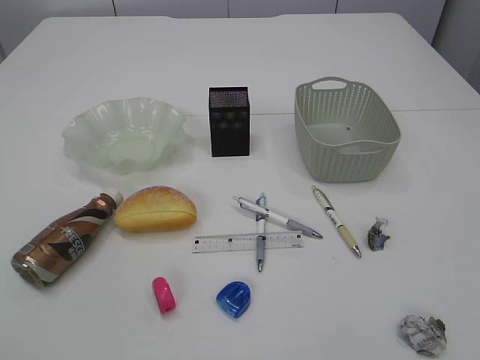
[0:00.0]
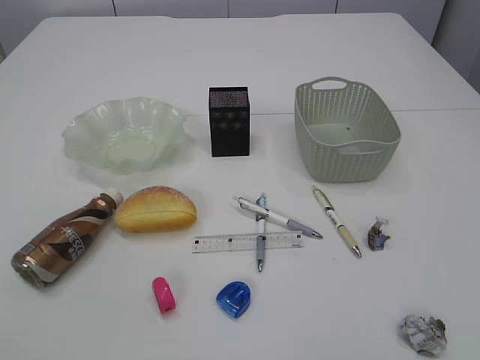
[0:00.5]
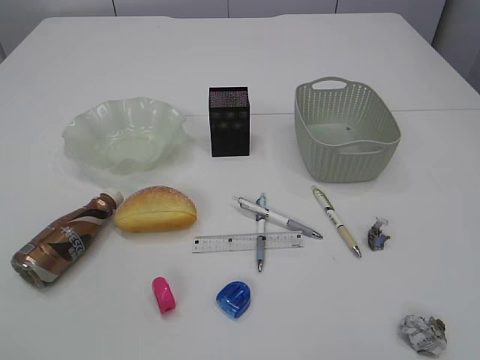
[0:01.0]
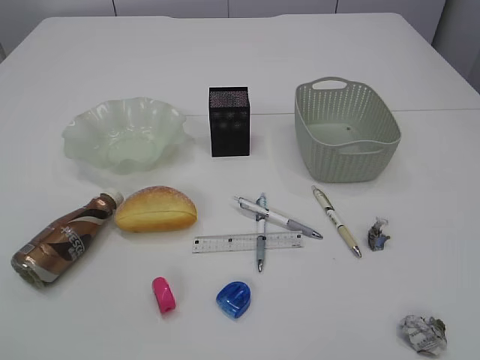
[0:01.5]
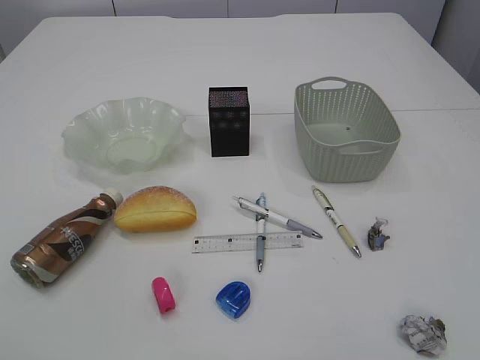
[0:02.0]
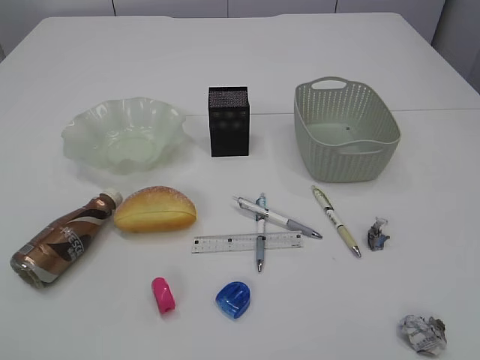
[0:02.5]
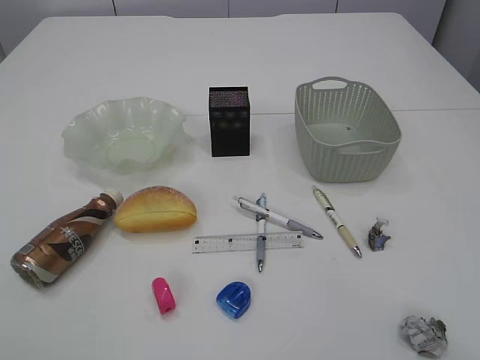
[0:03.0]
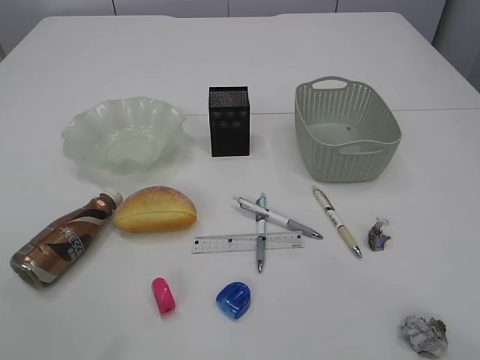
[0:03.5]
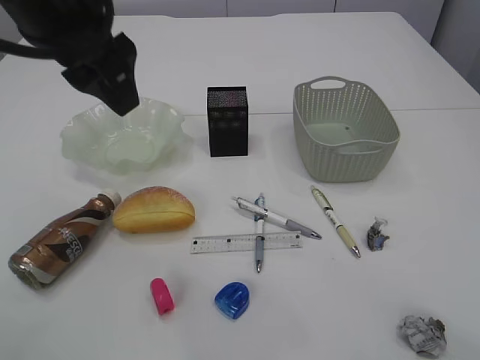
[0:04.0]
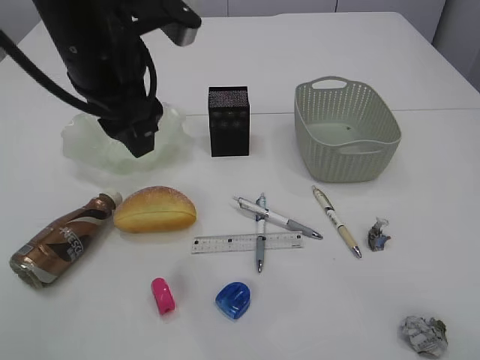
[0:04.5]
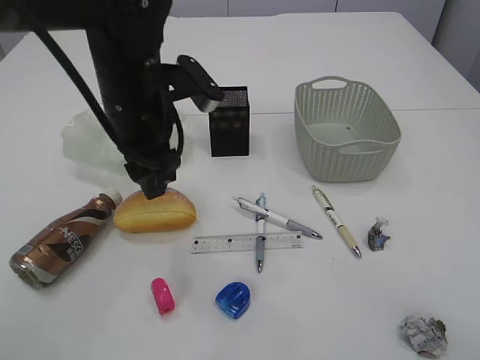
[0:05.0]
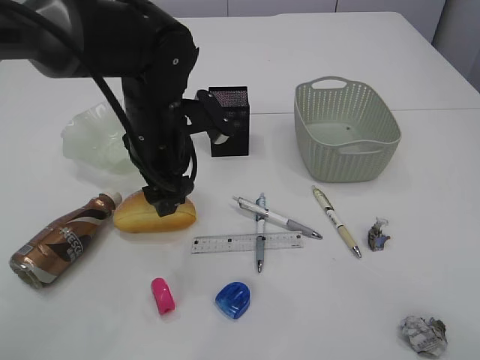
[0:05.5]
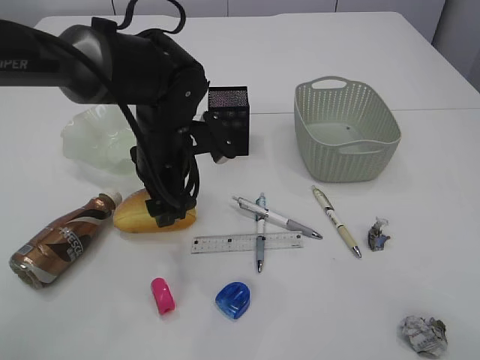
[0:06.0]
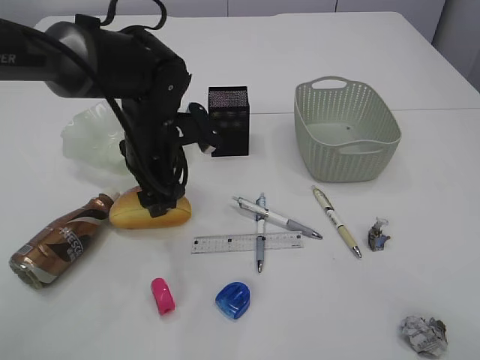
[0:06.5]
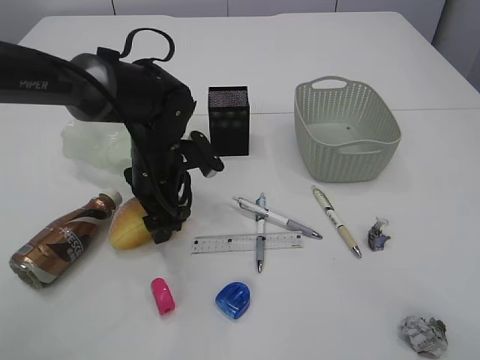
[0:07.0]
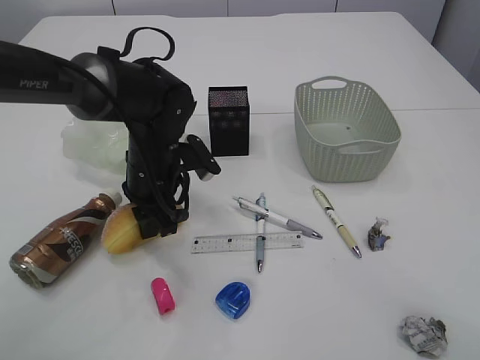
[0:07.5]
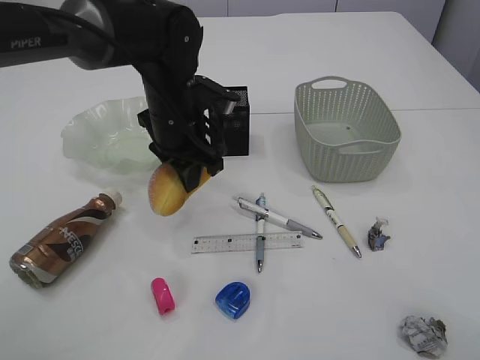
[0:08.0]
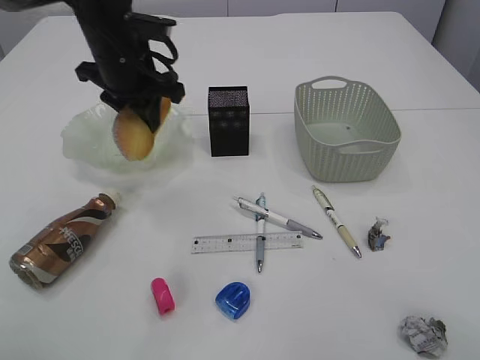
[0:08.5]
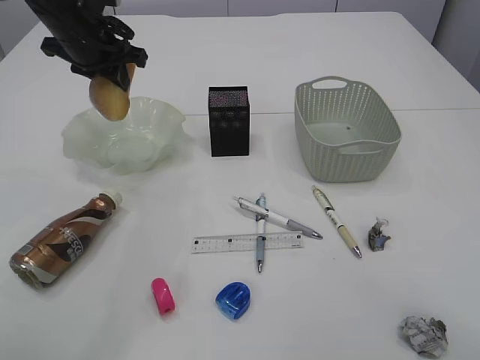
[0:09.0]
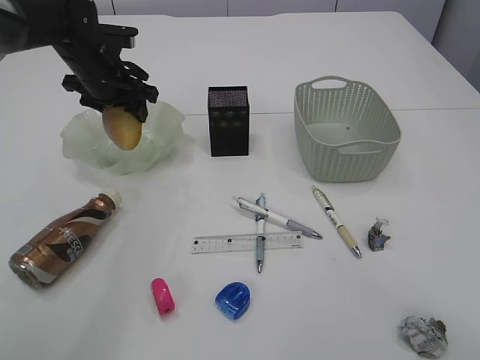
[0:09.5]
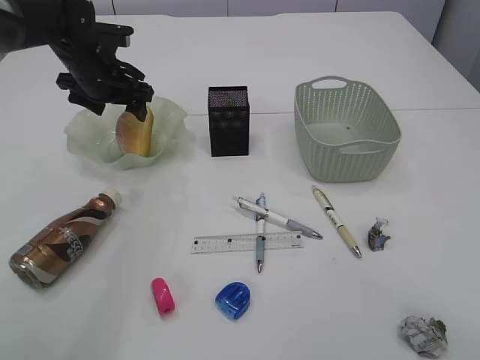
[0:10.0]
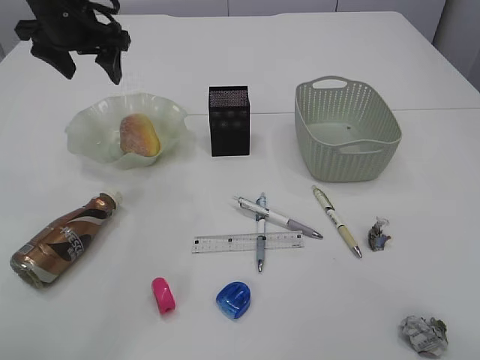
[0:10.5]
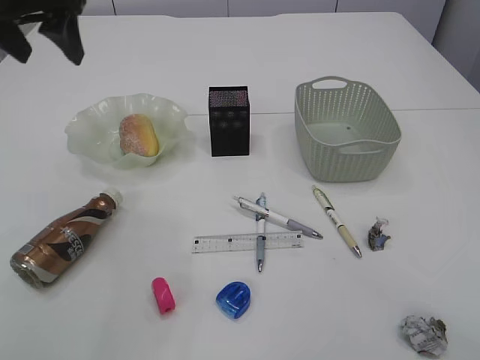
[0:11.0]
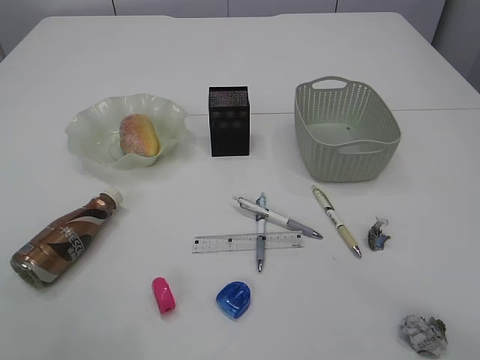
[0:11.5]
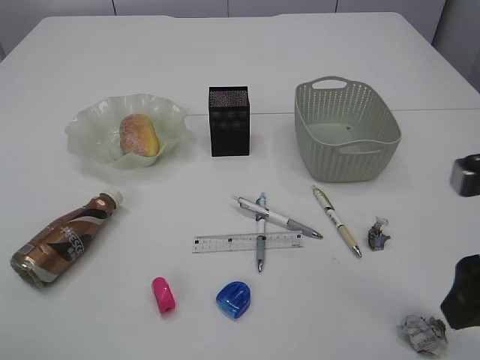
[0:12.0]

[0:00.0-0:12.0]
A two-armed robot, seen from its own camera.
Step, 0:08.5 to 0:10.0: place the bread in the plate.
0:02.0 to 0:04.0: The right gripper moves forward, roughly 10 cm. The left gripper moves forward and to the right, approximately 35 cm.
0:04.0 to 0:06.0: The left gripper goes roughly 20 cm downward.
0:06.0 to 0:08.0: The left gripper closes up.
0:08.0 to 0:10.0: The left gripper moves to the left and forward, roughly 15 cm, and opens up.
0:10.0 to 0:12.0: The right gripper is displaced forward, downward and to the left by about 10 cm. The left gripper heads backward and upward, covering some 40 cm.

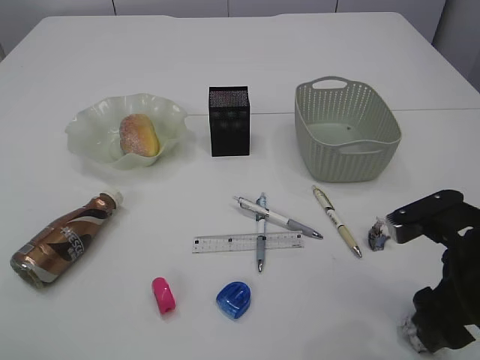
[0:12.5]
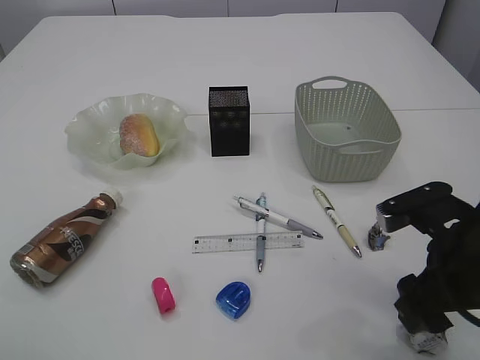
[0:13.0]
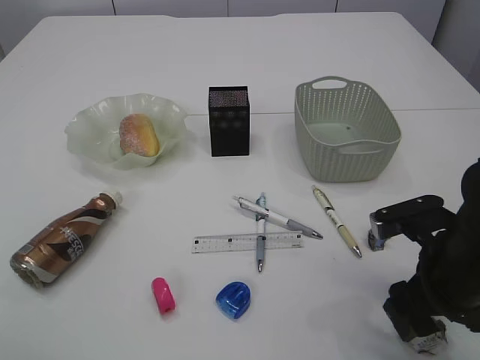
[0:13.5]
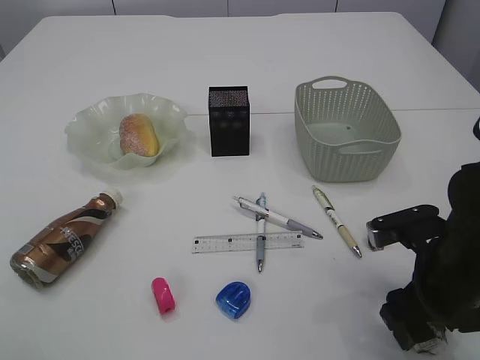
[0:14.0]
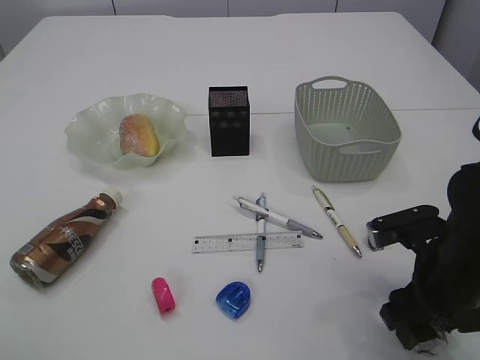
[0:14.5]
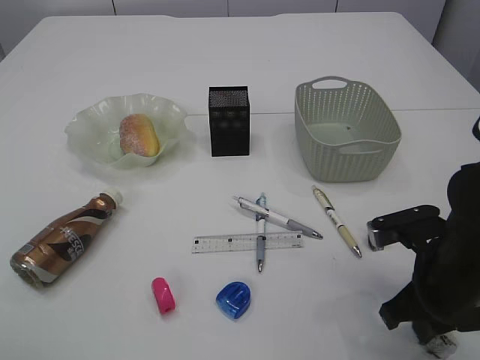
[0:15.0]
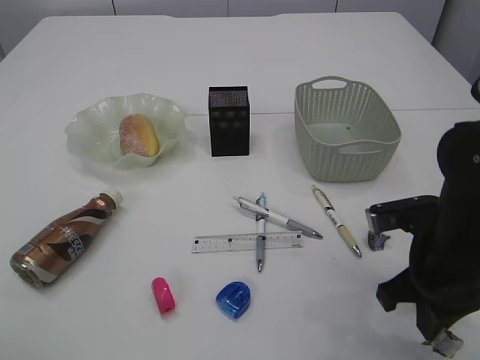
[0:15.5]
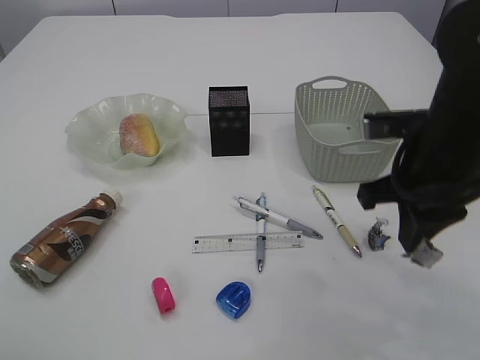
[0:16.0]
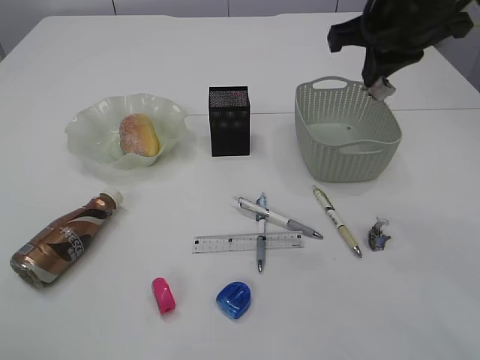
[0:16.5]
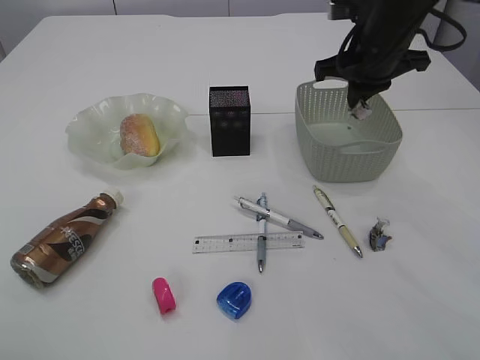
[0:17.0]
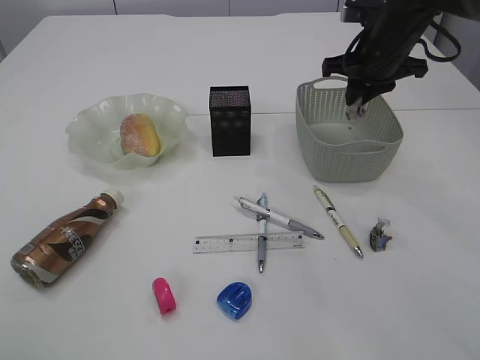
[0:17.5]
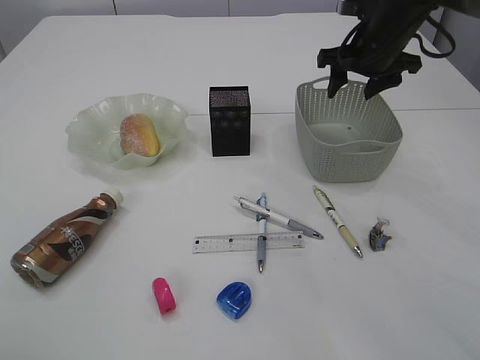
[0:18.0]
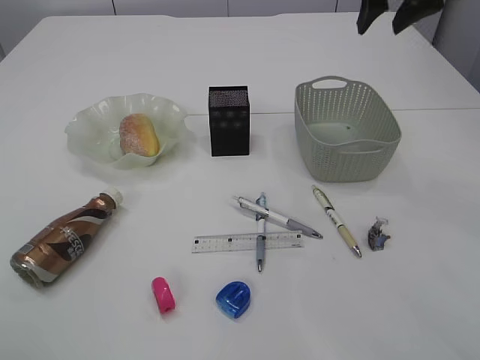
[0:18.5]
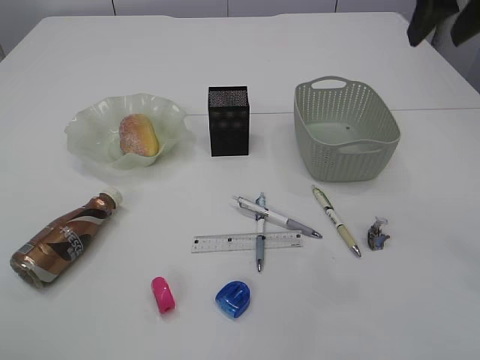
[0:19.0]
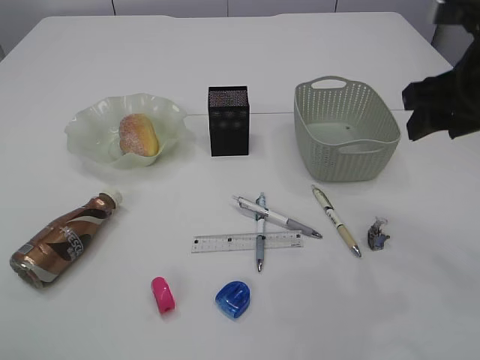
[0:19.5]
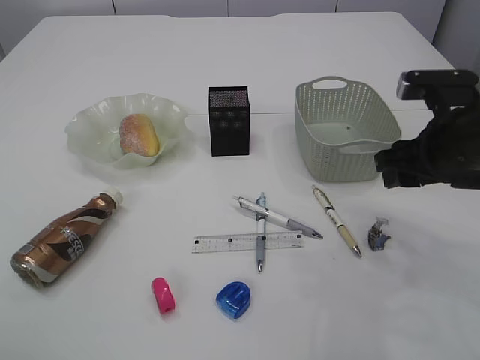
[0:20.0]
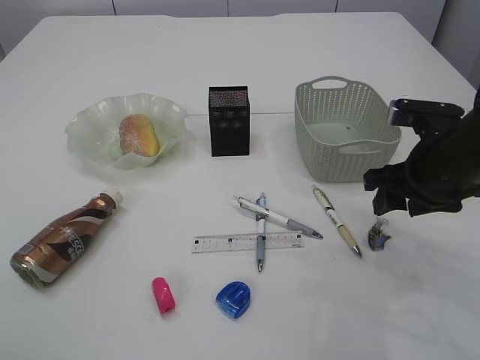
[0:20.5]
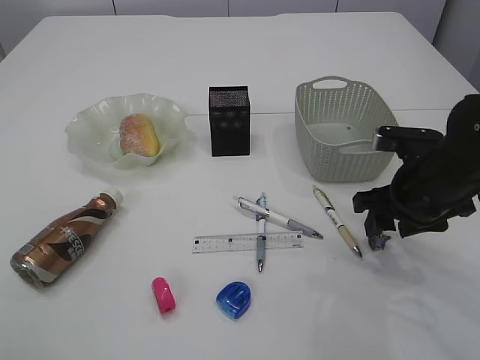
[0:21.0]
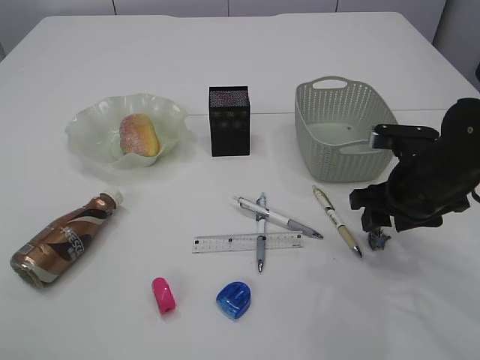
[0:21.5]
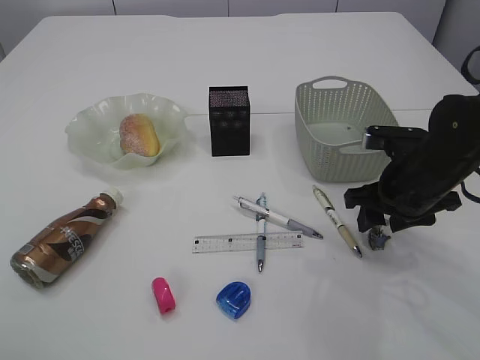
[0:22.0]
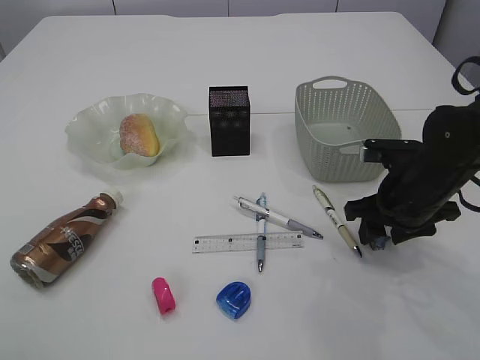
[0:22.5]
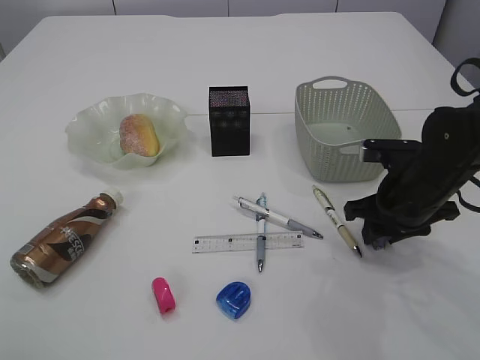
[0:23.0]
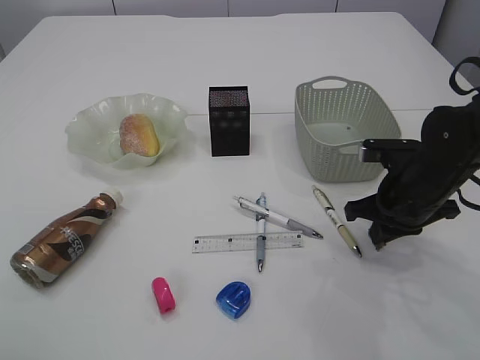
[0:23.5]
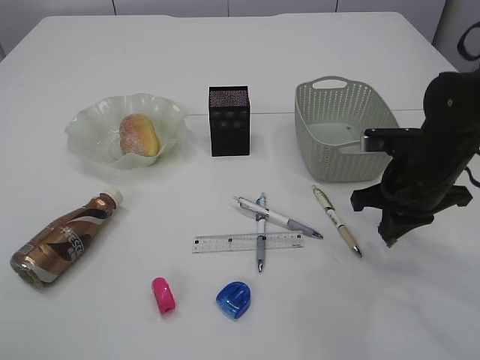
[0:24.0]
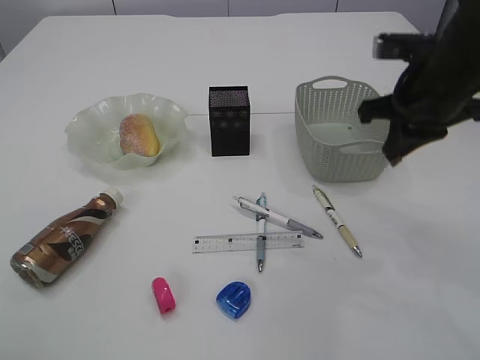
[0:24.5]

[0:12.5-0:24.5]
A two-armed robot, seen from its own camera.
Step, 0:12.5 to 0:15.5: Pick up the waste paper.
Step, 0:16.0 to 0:18.0: Place the waste paper in the basket.
Step, 0:18.5 to 0:24.0: Pick up the waste paper.
0:12.5 to 0:14.5: The right gripper shifts by some 5 cm.
0:14.5 to 0:16.5: The right gripper moves upward and forward, about 25 cm, and closes up.
0:16.5 to 0:18.5: The right gripper travels forward by about 10 cm, and opens up.
0:18.5 to 0:20.5: The right gripper goes approximately 20 cm downward and backward.
0:20.5 to 0:22.5: The right gripper moves downward, roughly 5 cm.
0:22.5 to 0:24.5: The right gripper heads upward, covering roughly 15 cm, and closes.

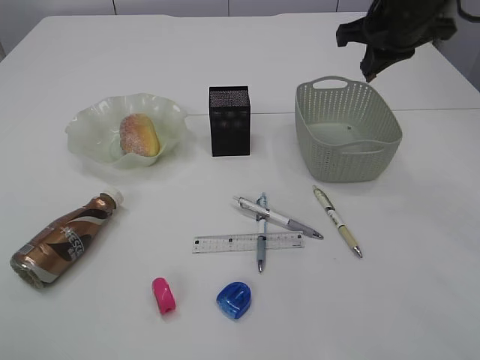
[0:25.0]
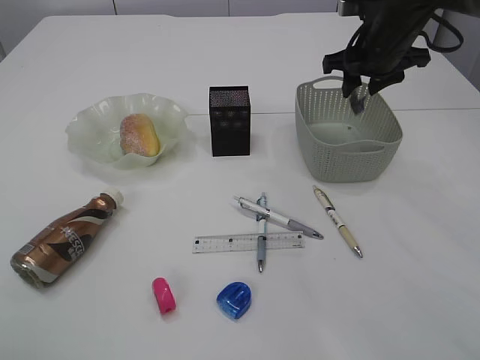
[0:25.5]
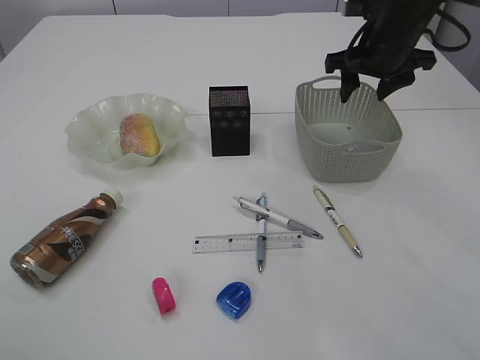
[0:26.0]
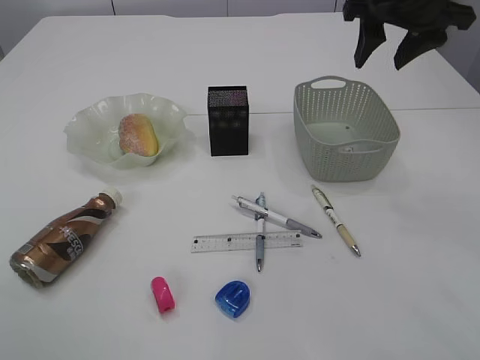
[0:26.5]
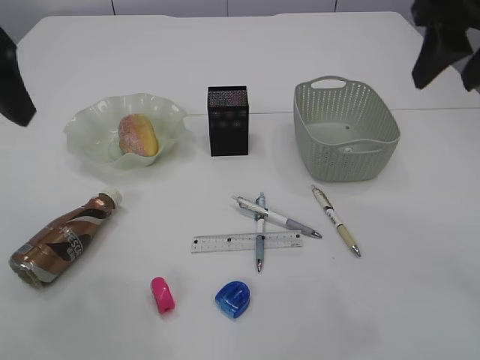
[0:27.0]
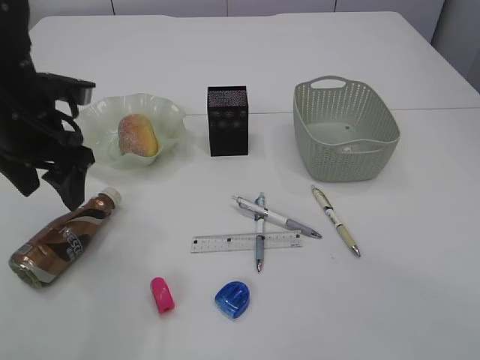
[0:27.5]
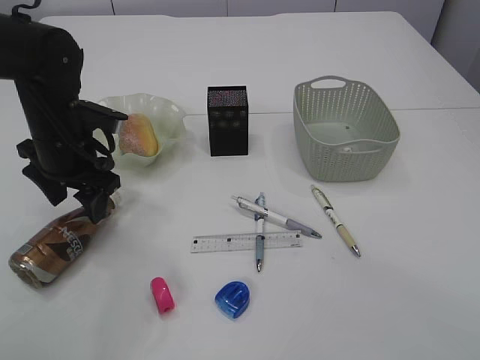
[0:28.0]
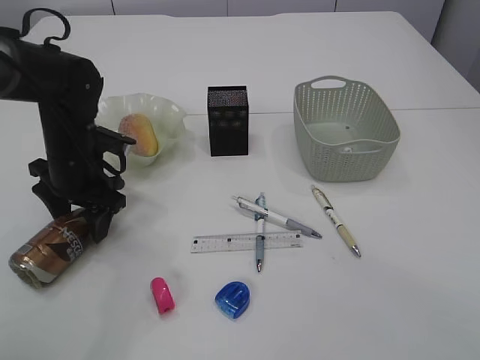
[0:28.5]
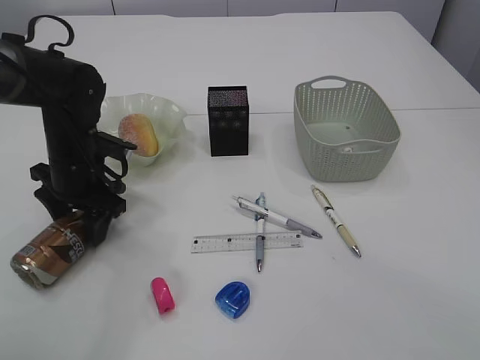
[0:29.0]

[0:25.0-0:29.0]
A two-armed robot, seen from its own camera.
Step, 0:25.0 to 0:26.0: Place the waste paper in the basket.
0:25.0 to 0:27.0: The left gripper goes approximately 15 cm downward and forward, while the right gripper moves backward and upward, some 15 cm, and opens.
0:27.0 to 0:29.0: The left gripper shifts roughly 25 cm downward and forward. The right gripper heads backward, covering roughly 15 cm.
